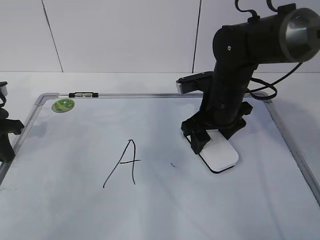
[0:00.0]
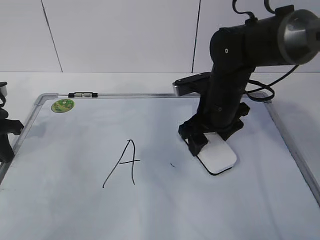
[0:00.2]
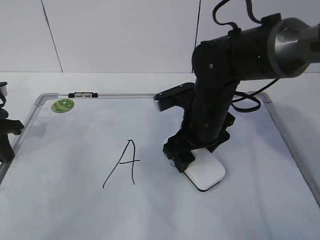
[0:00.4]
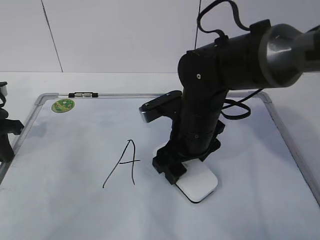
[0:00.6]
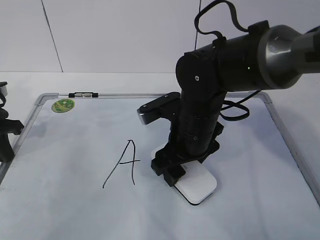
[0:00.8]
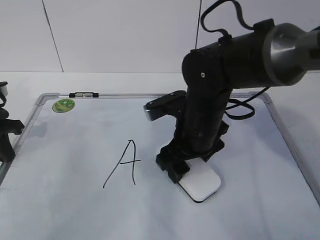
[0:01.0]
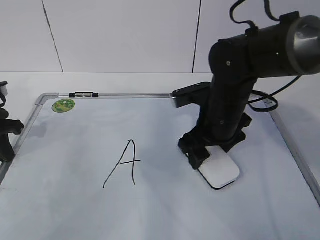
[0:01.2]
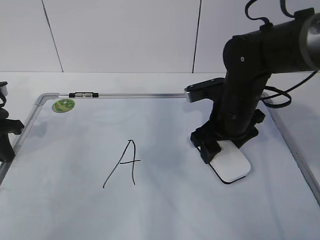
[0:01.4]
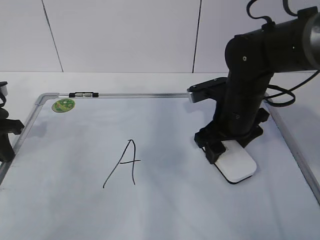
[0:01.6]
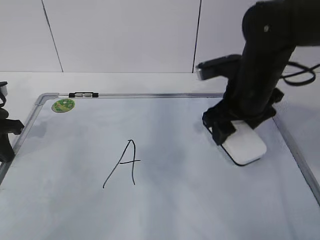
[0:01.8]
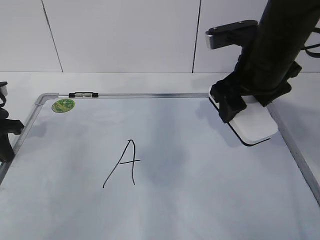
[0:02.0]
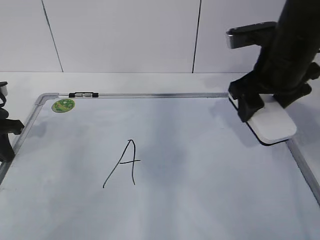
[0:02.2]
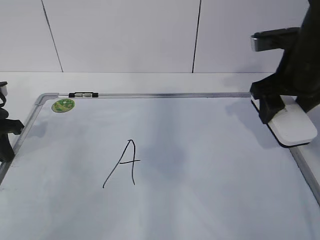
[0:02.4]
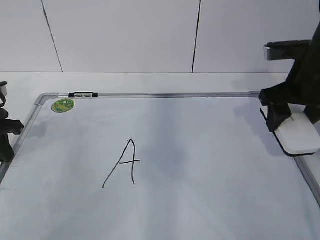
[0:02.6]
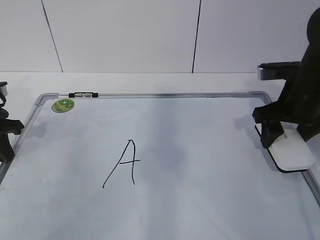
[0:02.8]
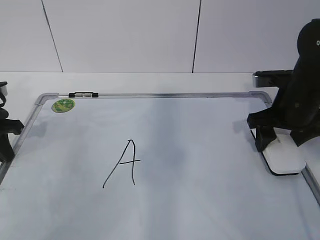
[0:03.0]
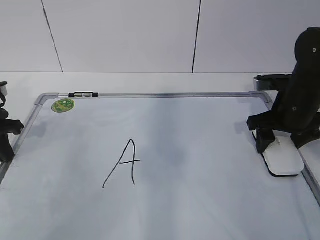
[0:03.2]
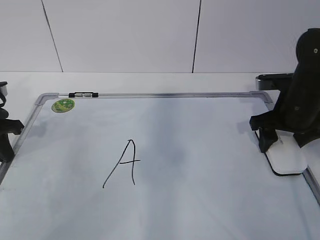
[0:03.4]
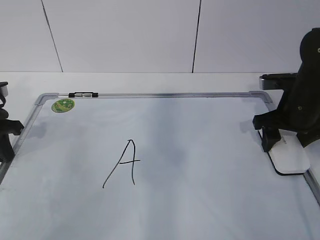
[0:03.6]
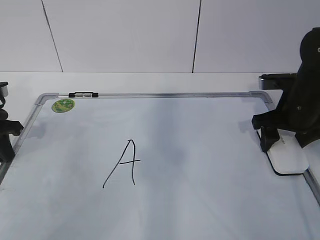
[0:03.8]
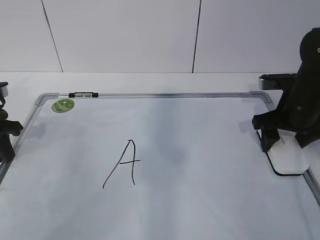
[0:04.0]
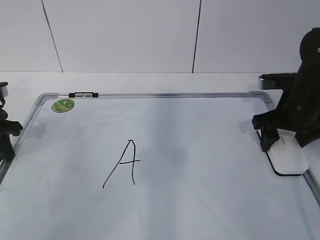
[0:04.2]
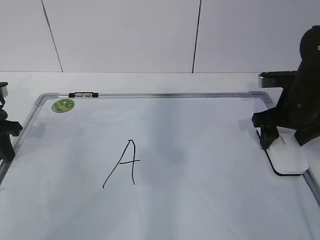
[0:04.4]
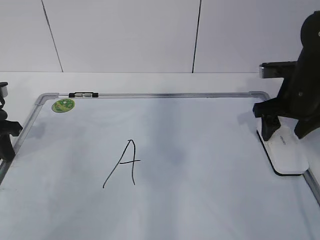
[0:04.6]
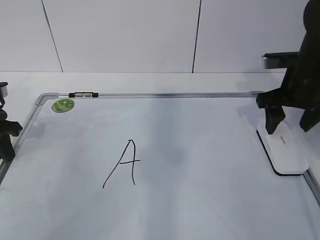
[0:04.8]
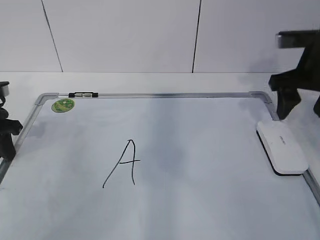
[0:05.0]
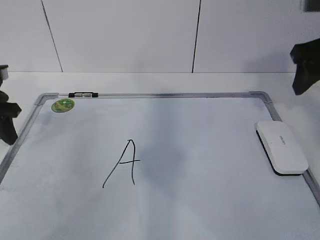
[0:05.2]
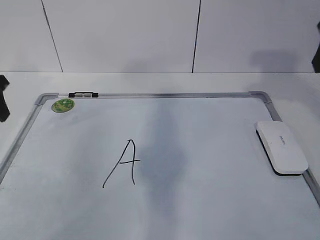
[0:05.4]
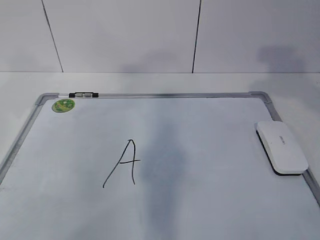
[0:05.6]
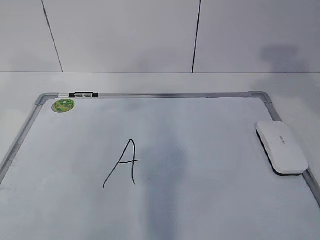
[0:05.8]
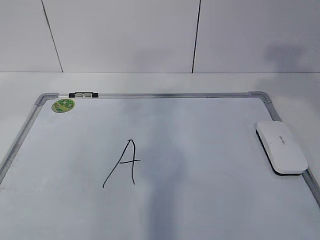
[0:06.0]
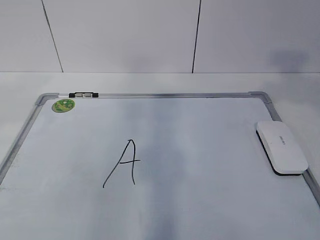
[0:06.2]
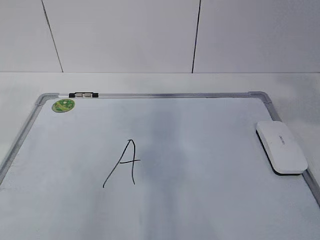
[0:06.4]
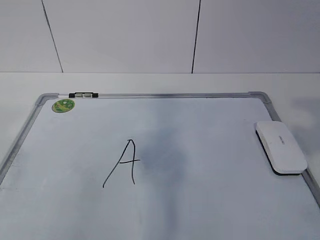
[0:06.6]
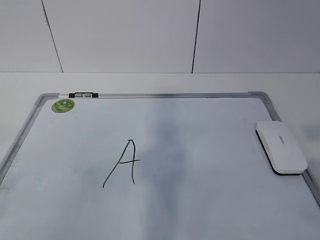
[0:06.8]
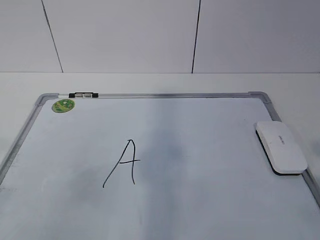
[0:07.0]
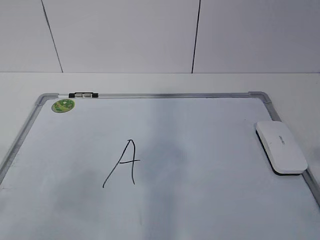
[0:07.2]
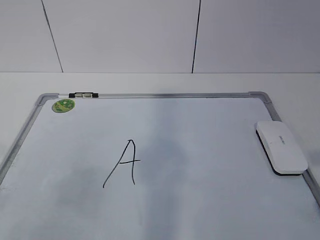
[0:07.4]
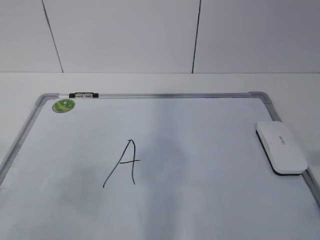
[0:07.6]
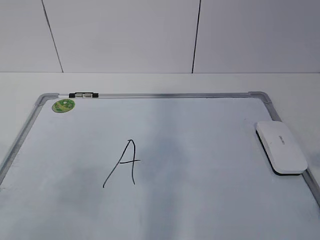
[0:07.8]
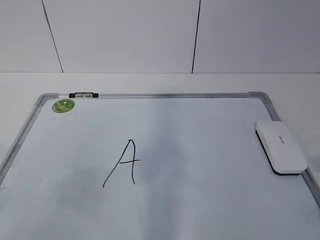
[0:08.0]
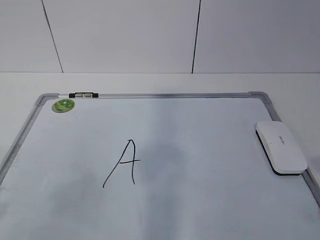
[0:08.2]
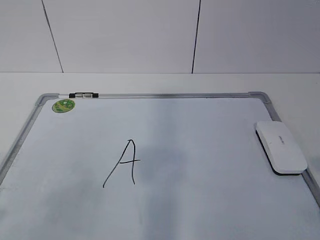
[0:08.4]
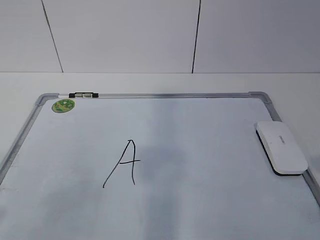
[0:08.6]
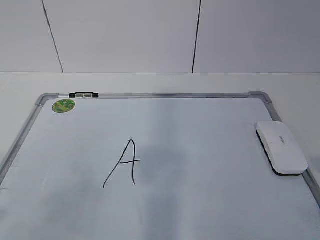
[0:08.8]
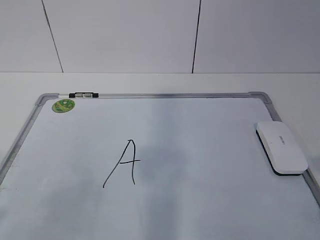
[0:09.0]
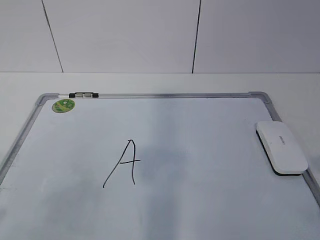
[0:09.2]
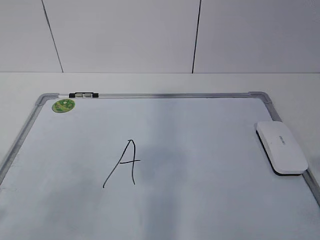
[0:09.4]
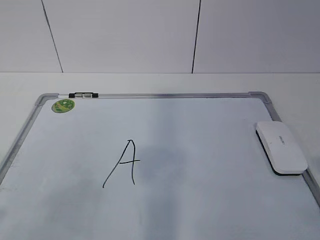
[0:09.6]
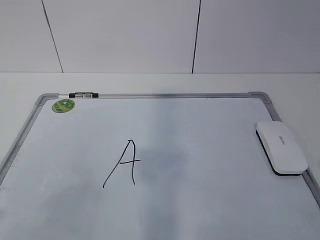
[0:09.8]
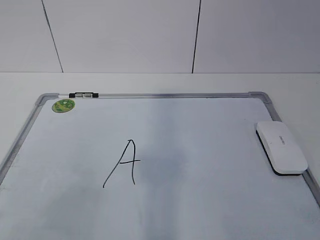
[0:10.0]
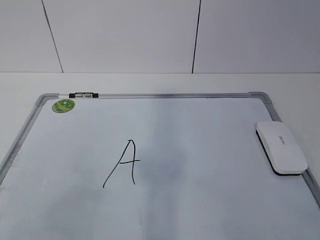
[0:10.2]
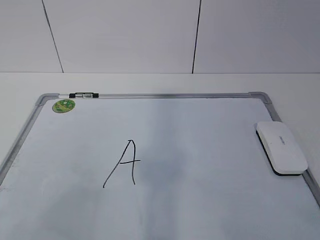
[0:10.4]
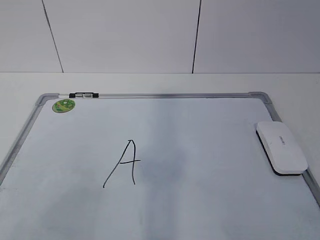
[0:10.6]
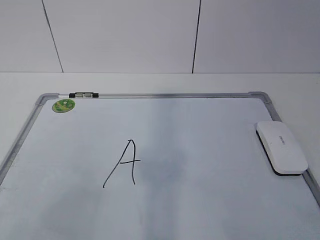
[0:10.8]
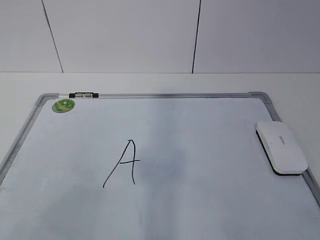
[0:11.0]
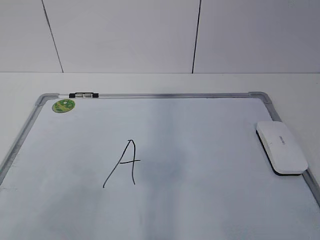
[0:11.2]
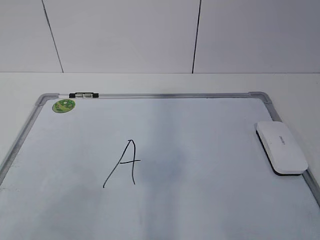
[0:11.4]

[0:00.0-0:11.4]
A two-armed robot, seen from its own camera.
Task of the whole recording: pick up the eraser on the blackboard and erase the letter "a".
0:00.0 to 0:01.4: The right gripper goes to the left and returns, about 5 cm each way.
0:01.4 to 0:02.8: The right gripper is displaced to the right by about 10 cm.
0:04.2 to 0:05.6: The left gripper travels upward by about 15 cm, and opens. Meanwhile the right gripper heads upward and backward, covering some 25 cm.

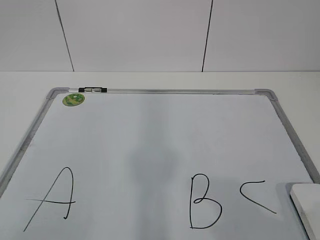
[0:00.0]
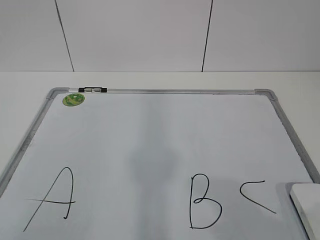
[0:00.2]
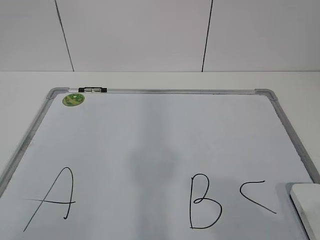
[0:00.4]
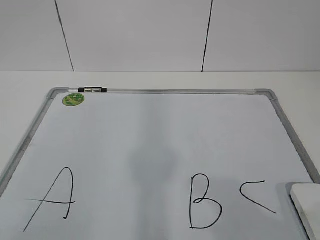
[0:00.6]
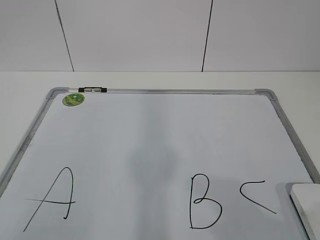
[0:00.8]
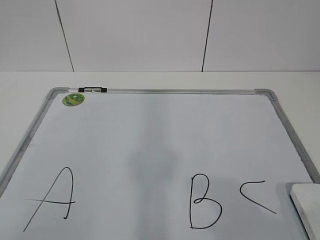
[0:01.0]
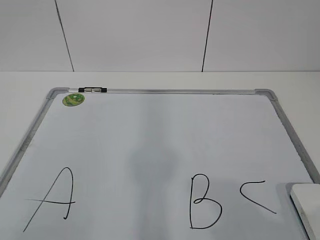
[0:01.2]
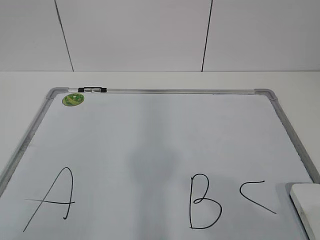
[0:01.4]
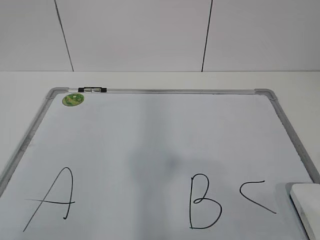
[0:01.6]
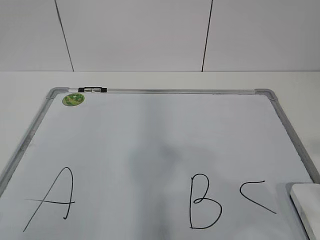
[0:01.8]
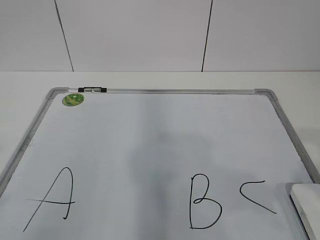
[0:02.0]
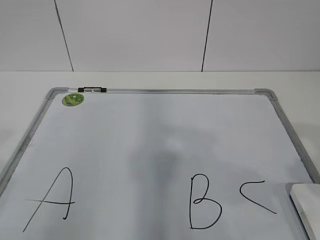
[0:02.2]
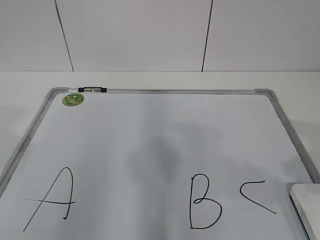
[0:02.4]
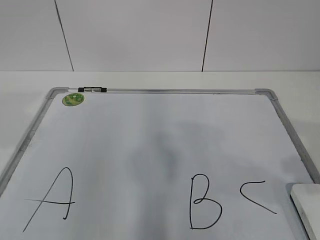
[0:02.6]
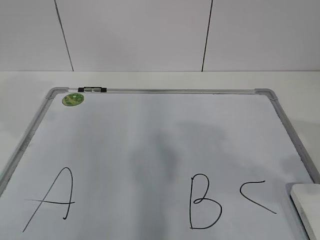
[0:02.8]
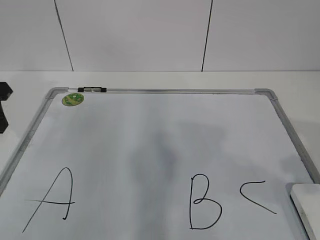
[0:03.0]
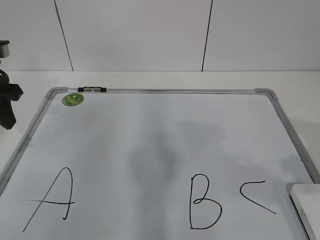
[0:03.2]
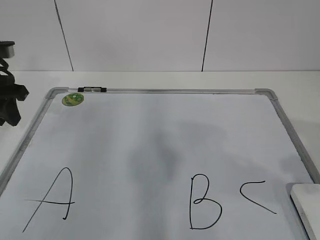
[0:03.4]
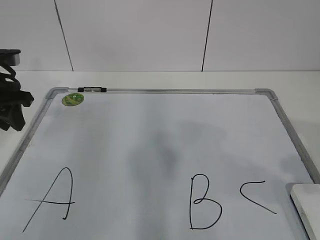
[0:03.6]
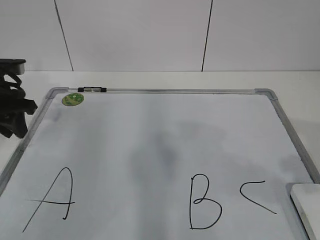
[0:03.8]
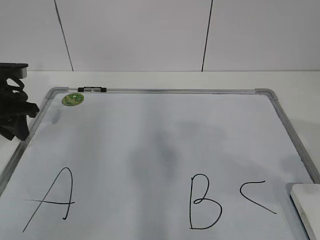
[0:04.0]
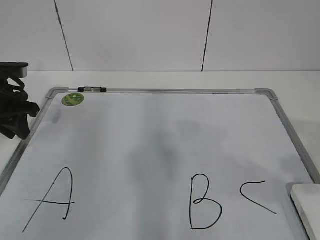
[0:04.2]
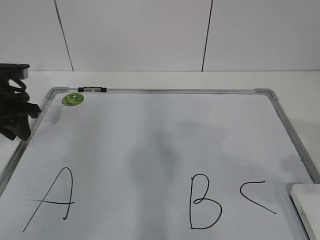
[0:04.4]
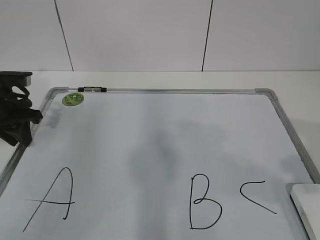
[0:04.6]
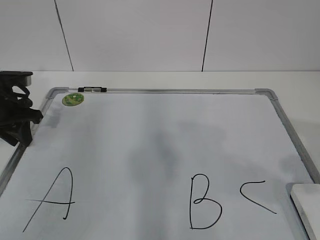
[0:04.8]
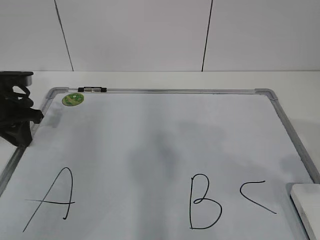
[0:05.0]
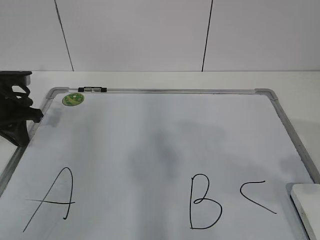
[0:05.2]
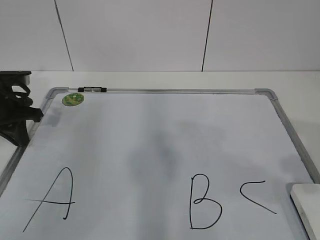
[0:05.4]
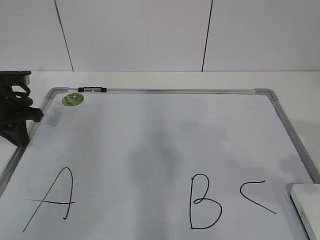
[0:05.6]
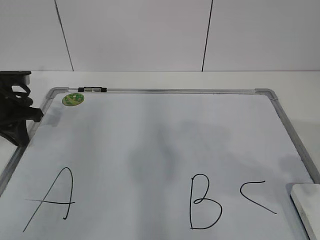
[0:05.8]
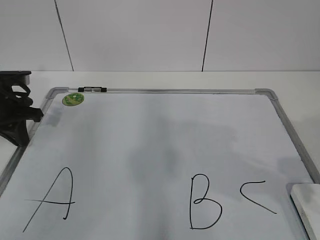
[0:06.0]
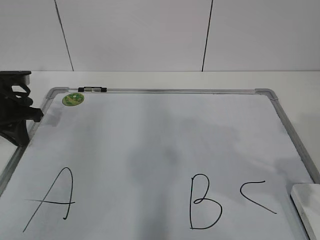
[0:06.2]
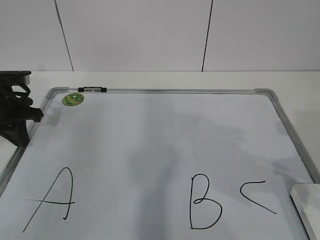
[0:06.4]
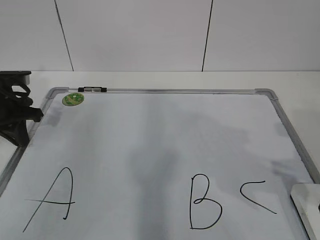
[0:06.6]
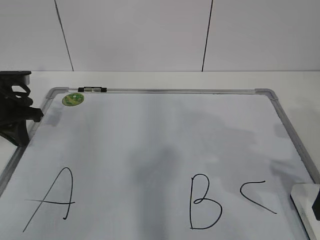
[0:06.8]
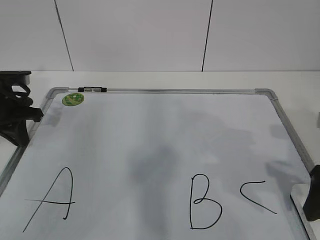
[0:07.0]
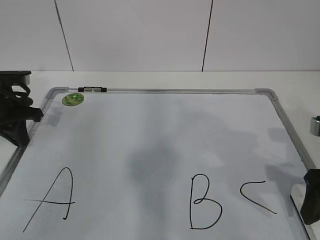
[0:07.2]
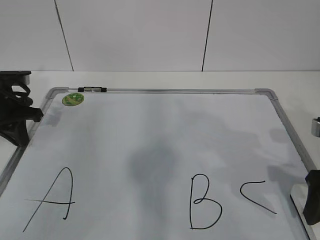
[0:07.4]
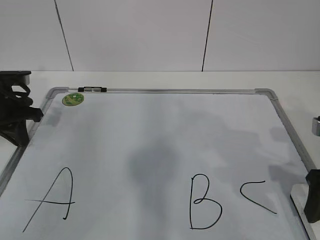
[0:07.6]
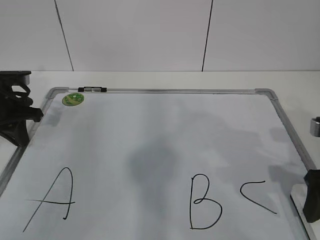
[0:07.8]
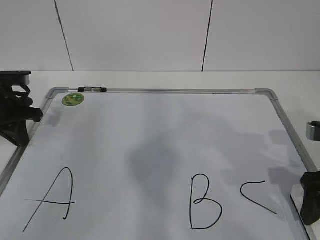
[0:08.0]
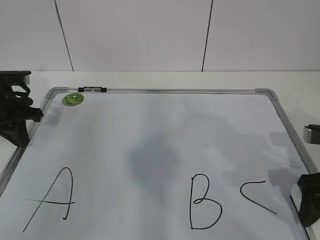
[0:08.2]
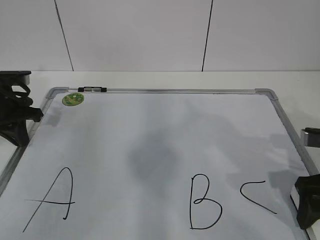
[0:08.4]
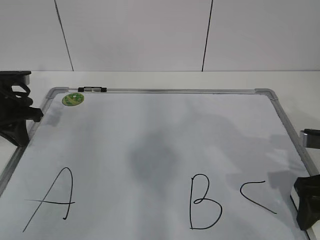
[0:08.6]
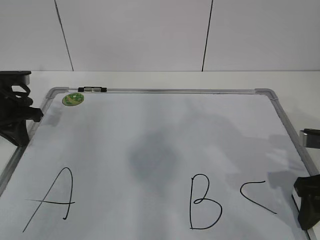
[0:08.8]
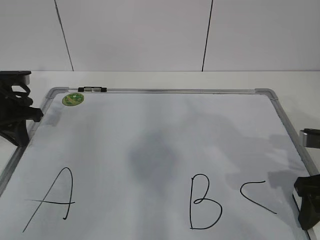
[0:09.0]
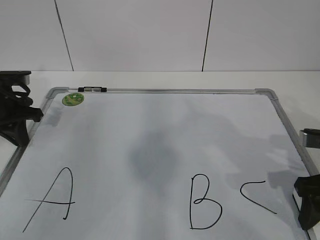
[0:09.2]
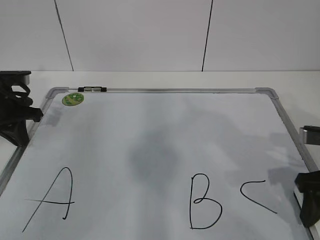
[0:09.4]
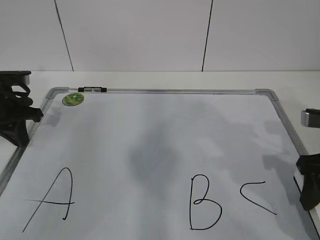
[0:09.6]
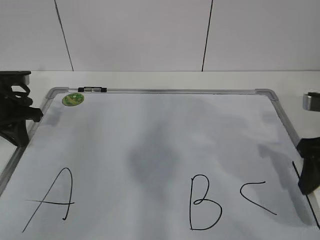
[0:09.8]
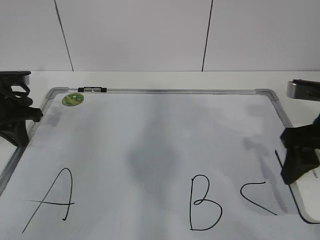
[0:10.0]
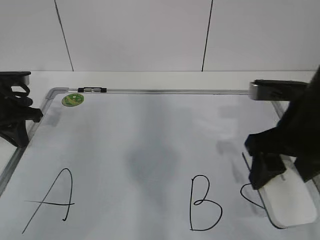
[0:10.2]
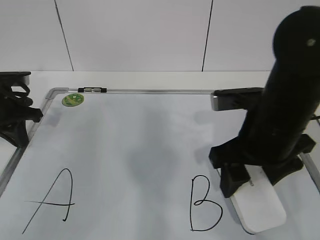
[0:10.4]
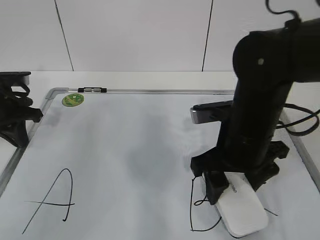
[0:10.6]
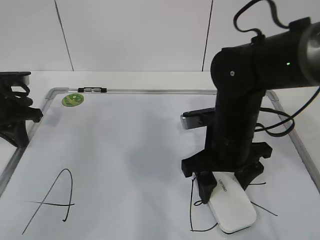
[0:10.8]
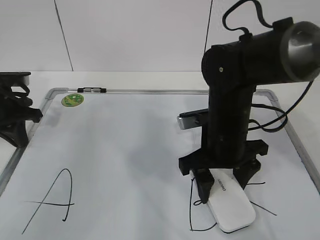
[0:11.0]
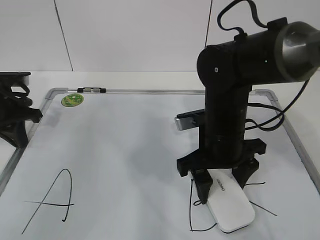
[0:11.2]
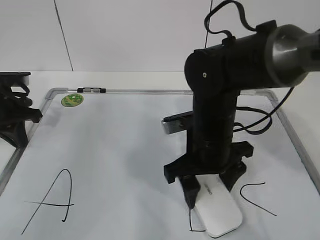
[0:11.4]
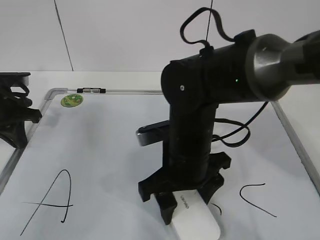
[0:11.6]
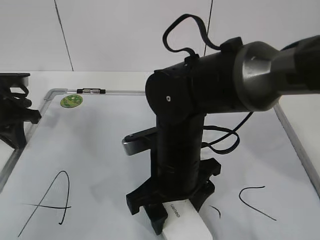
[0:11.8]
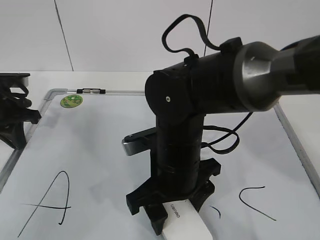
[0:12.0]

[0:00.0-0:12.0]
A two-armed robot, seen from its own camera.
Task of the whole recording: pick up the eraser on the blackboard and erase the letter "B".
Step, 0:00.0 to 0:04.2: Hold the drawing board steady with your left hand.
Step, 0:04.4 to 0:07.6: Grab the eraser with your right hand.
0:01.6 to 0:03.0: The left gripper travels forward by about 30 cm. The right gripper goes about 10 cm forward.
0:03.0 to 0:04.4: The left gripper travels downward and forward by roughly 10 cm.
0:04.4 to 0:06.0: The left gripper closes.
0:06.0 to 0:07.6: The right gripper shifts some 10 cm downward and forward.
0:07.6 to 0:09.0: The right gripper closes up.
0:09.0 to 0:10.4: The right gripper goes approximately 15 cm to the left and upward.
0:10.4 to 0:12.0: The right gripper goes about 15 cm to the left and downward.
